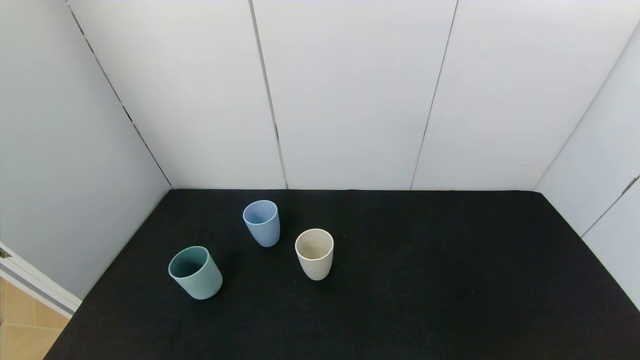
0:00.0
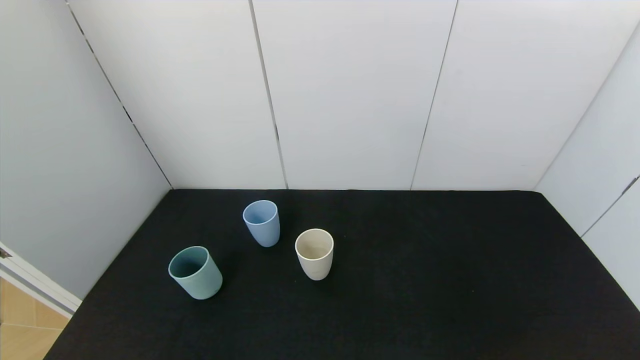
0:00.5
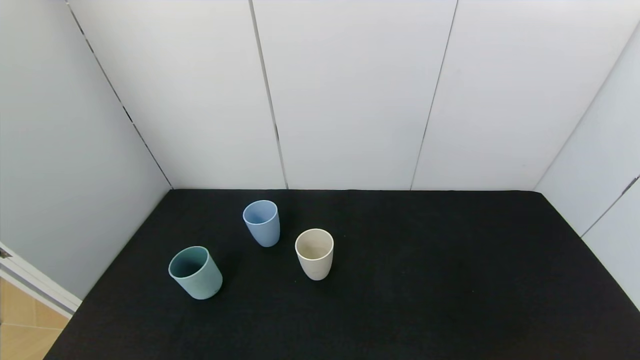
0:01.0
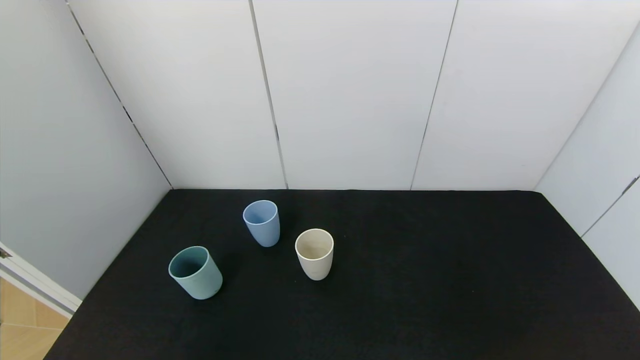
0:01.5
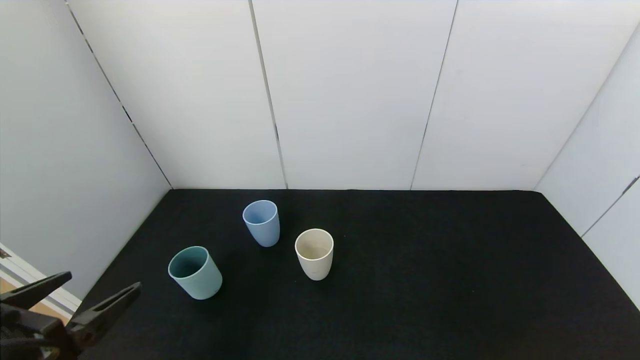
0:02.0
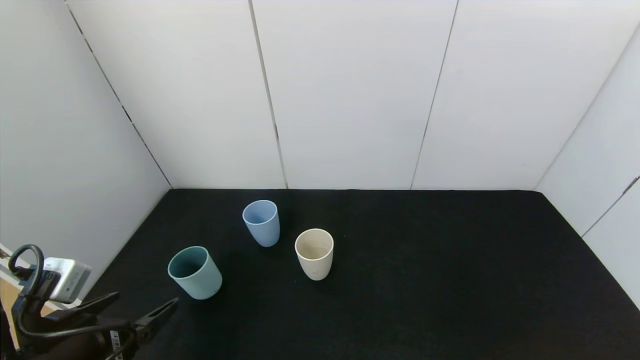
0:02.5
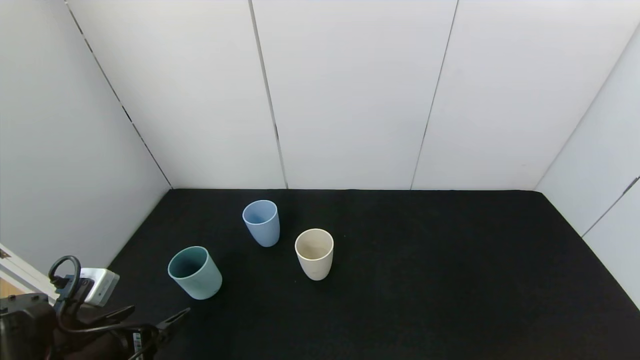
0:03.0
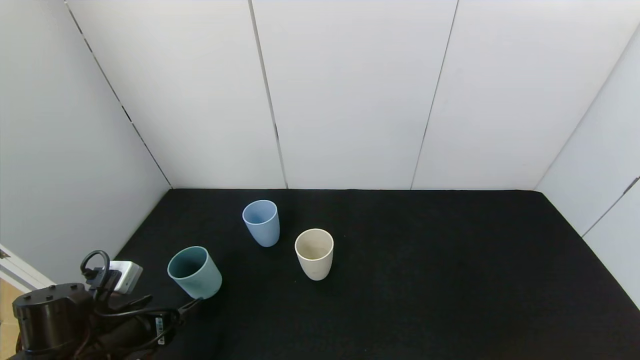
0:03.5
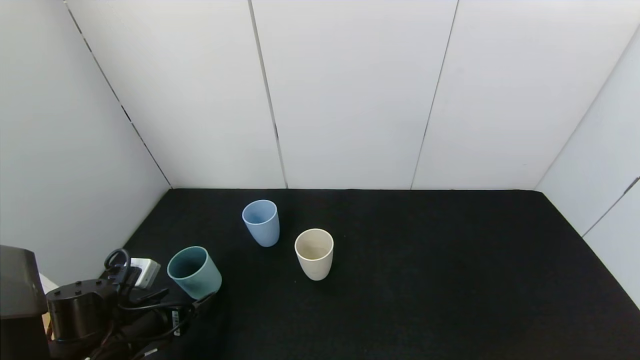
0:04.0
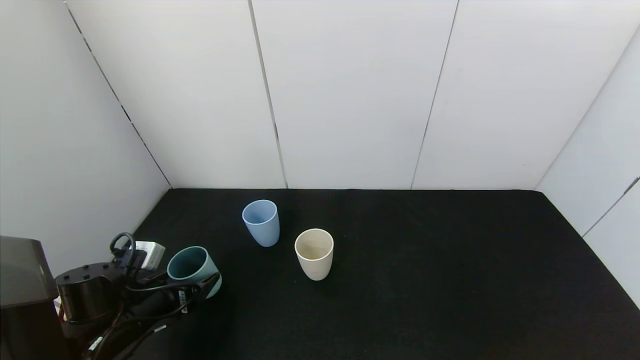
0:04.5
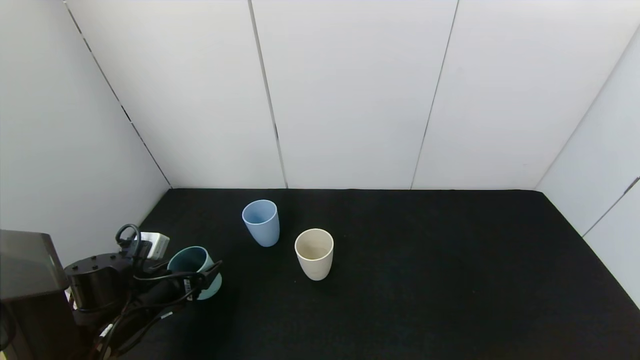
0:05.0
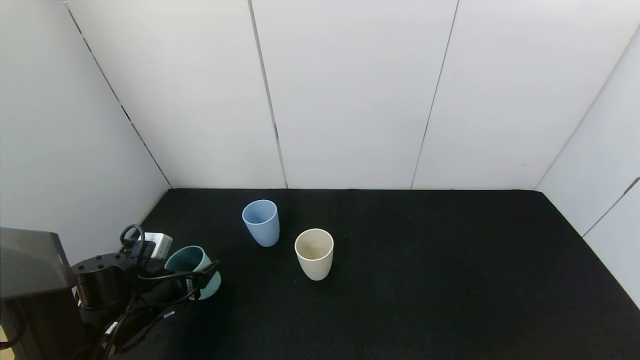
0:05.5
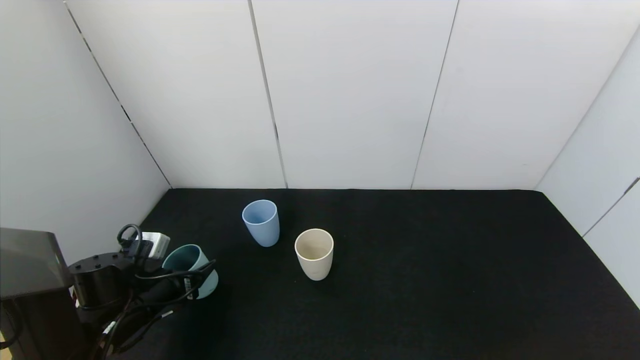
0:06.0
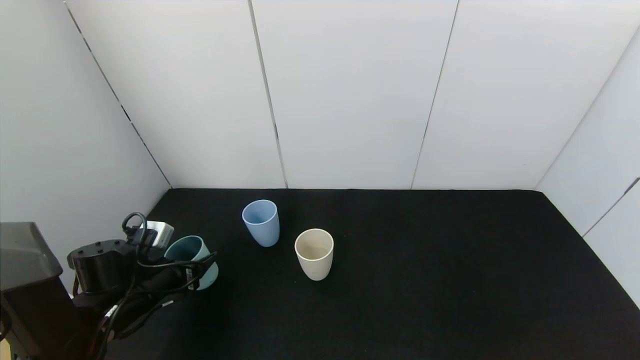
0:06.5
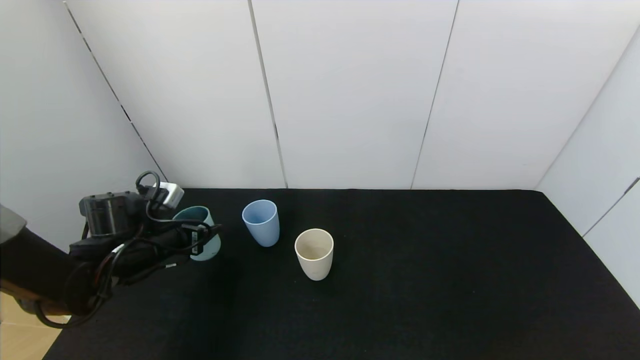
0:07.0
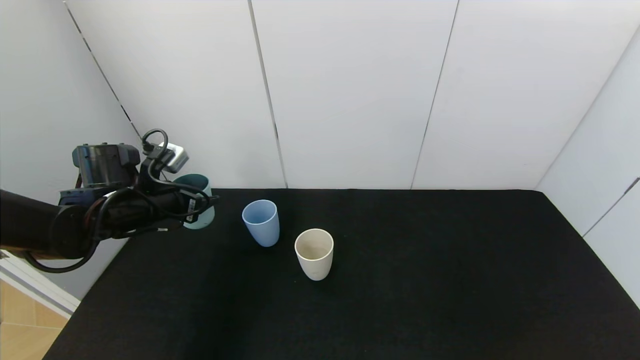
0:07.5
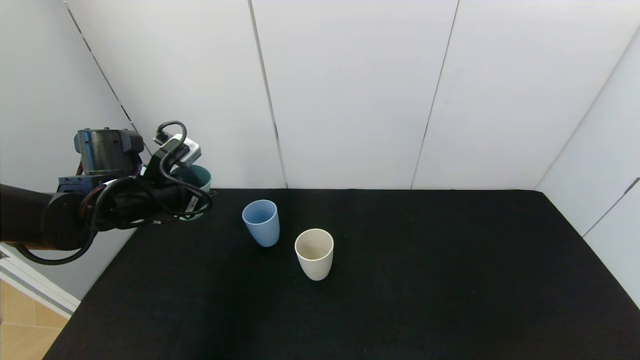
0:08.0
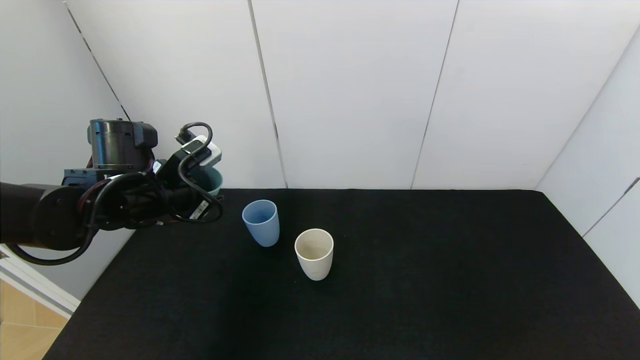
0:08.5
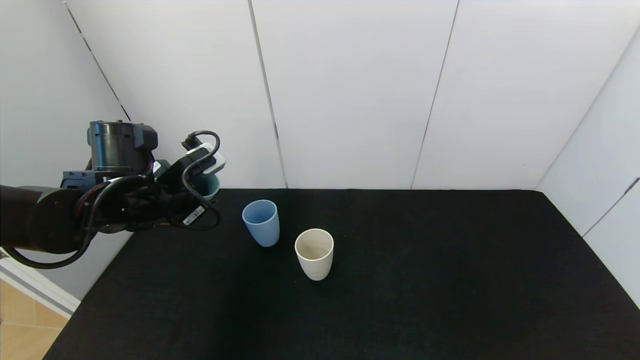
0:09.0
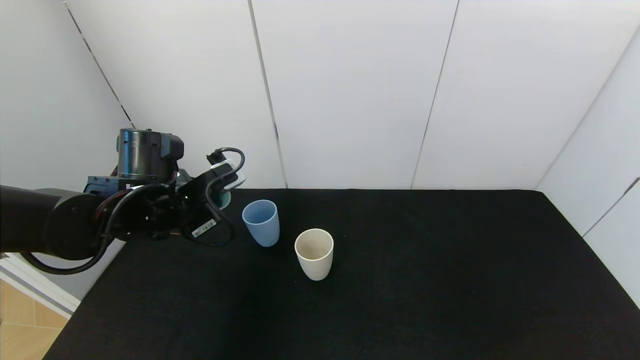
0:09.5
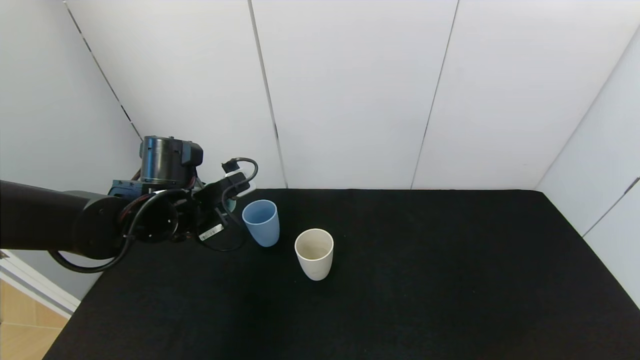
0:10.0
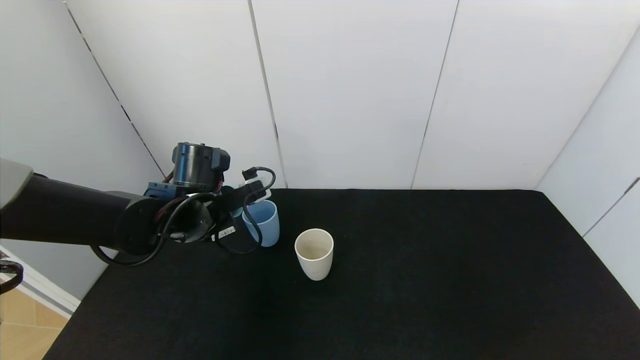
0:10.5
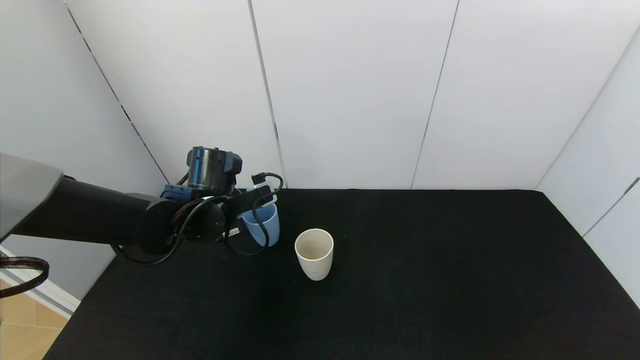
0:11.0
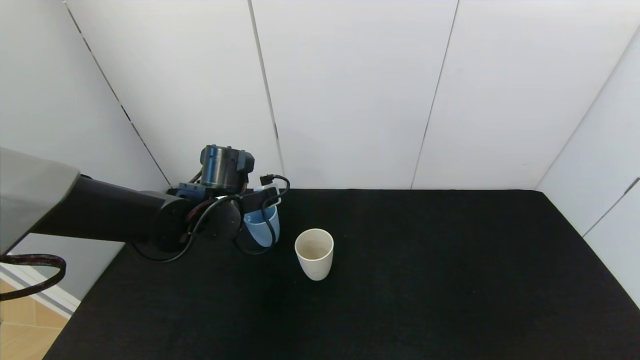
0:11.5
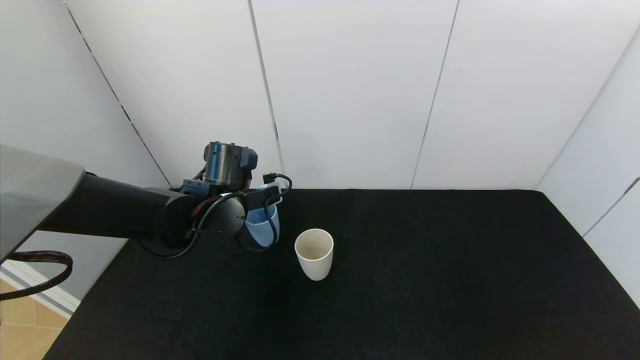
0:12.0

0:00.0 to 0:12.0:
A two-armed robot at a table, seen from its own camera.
Task of the whole recording: use the gripper to pour the water into the other two cups on black table.
Step, 0:00.0 to 0:06.0: Pick up the green plastic cup with left gripper.
0:00.0 to 0:02.0: The left gripper travels forward and upward by some 15 cm.
0:02.0 to 0:04.0: The left gripper goes approximately 20 cm downward and forward.
0:04.0 to 0:06.0: The left gripper goes some 5 cm forward, and closes its fingers.
0:06.0 to 0:08.0: The left gripper travels upward and forward by roughly 15 cm.
0:08.0 to 0:10.0: The left gripper shifts approximately 5 cm to the right.
0:10.0 to 0:12.0: The left gripper ends up some 5 cm from where it was.

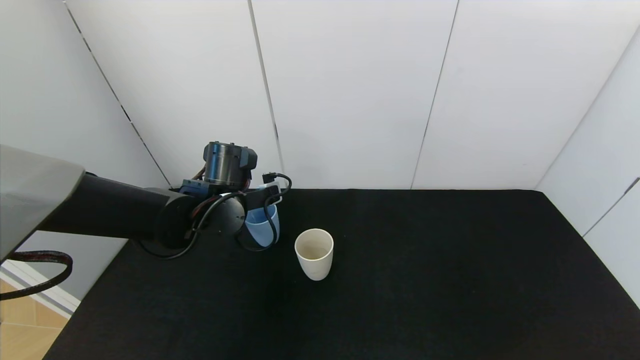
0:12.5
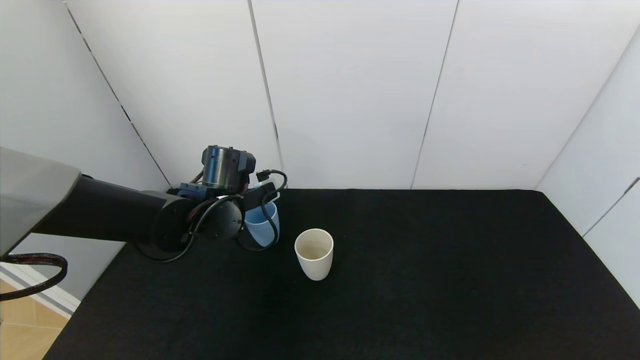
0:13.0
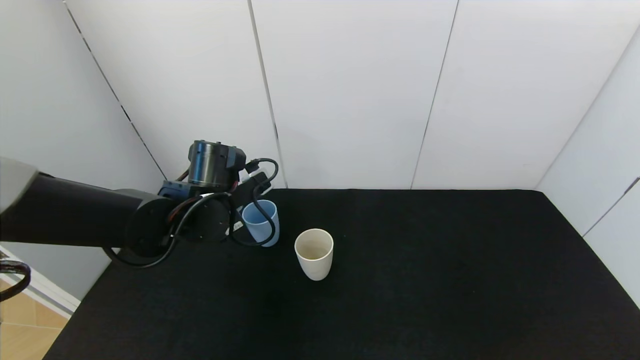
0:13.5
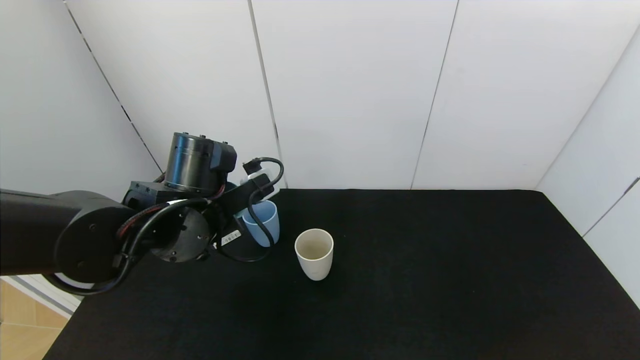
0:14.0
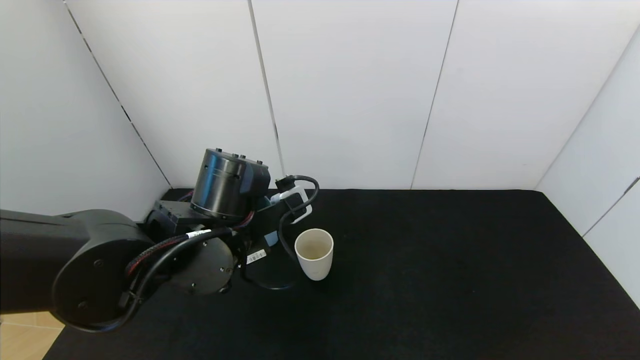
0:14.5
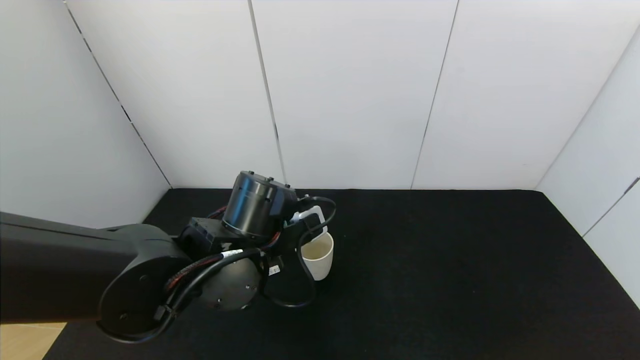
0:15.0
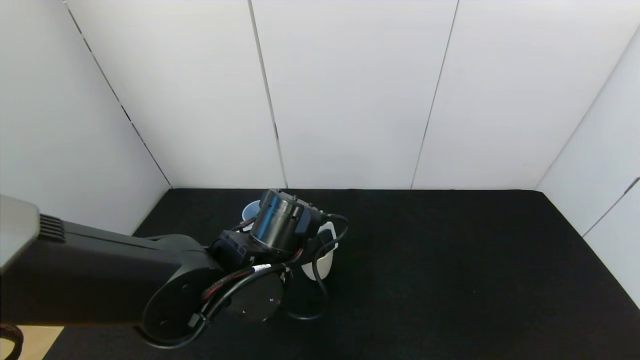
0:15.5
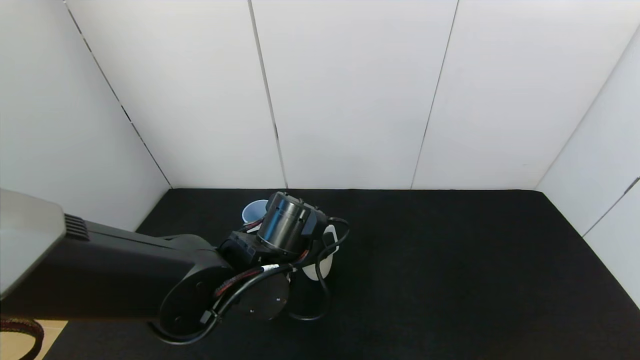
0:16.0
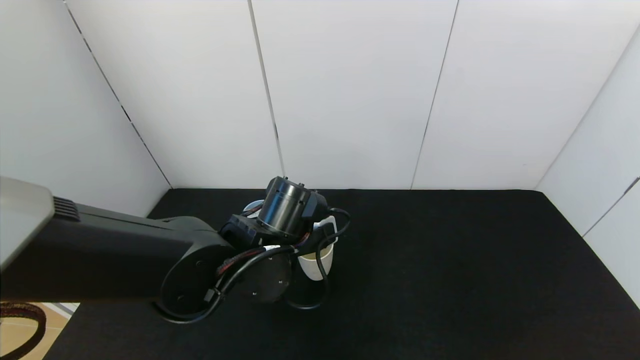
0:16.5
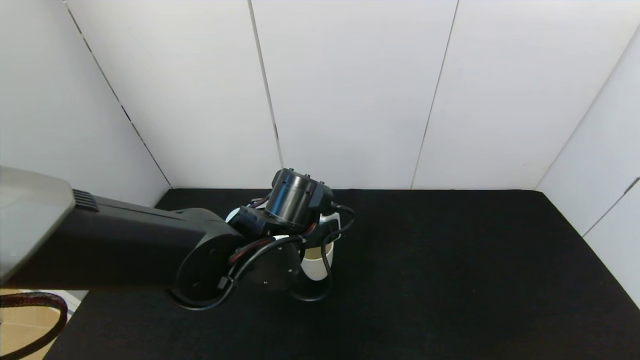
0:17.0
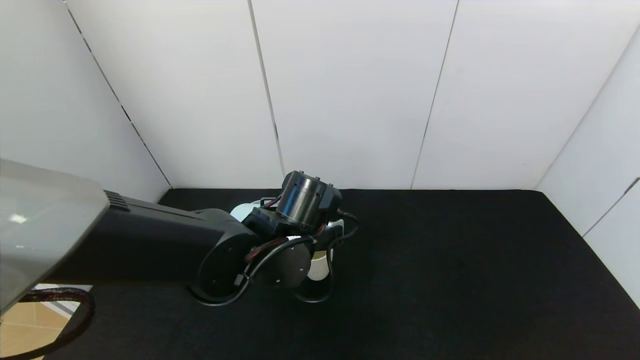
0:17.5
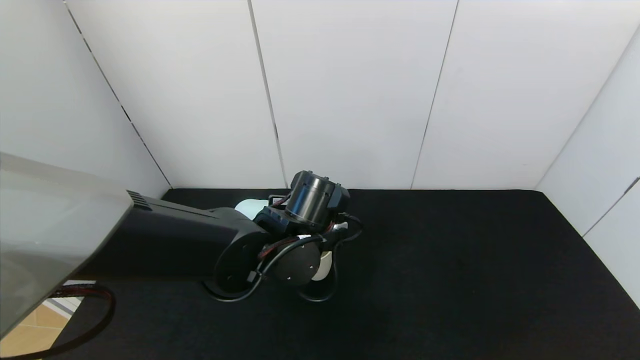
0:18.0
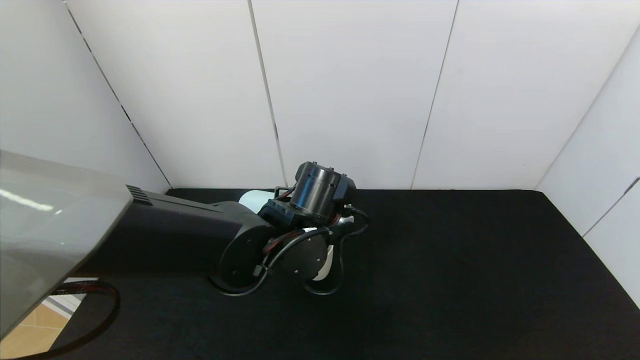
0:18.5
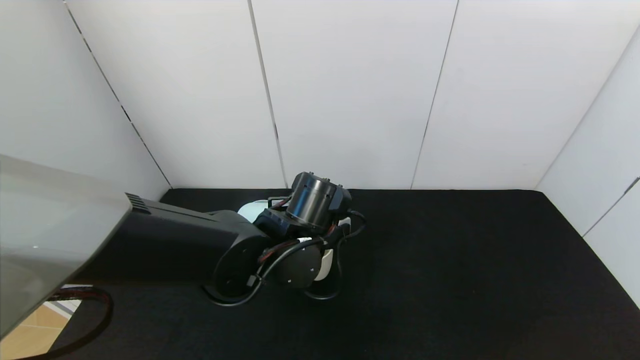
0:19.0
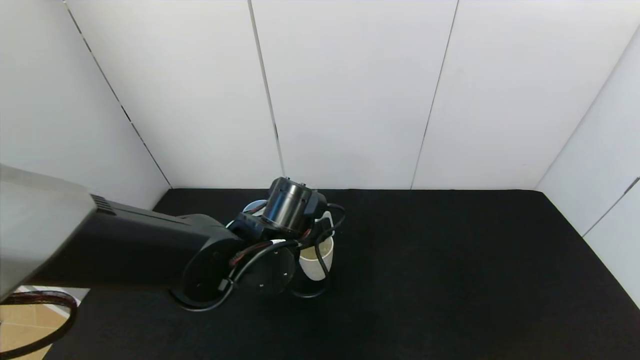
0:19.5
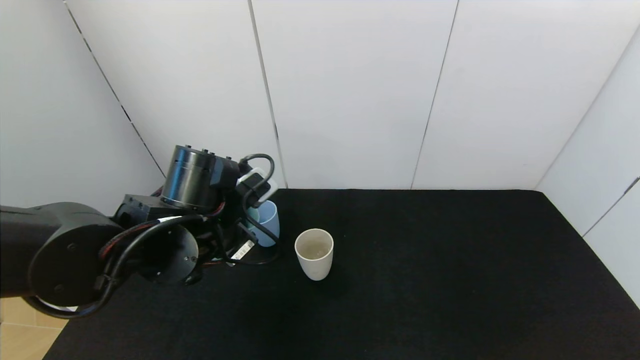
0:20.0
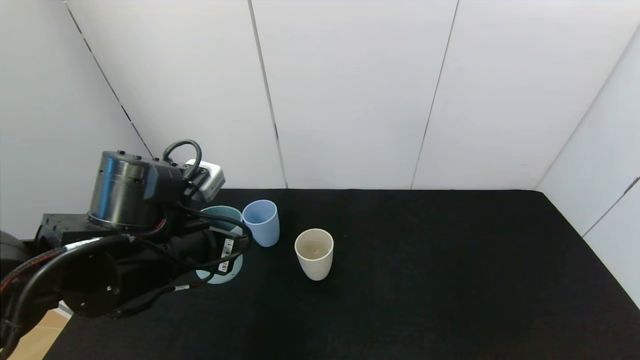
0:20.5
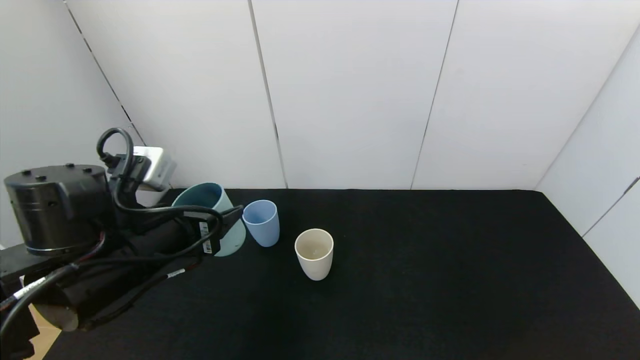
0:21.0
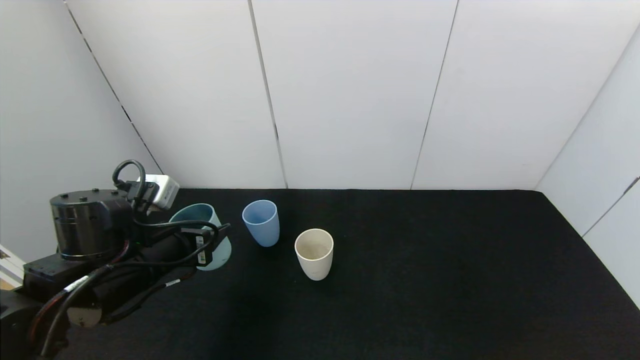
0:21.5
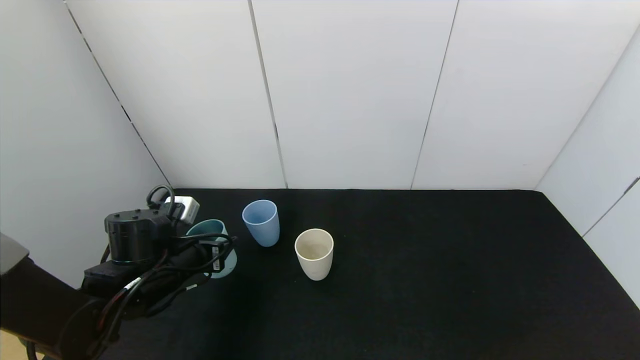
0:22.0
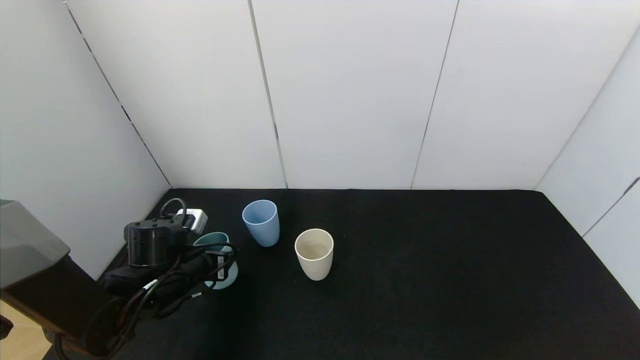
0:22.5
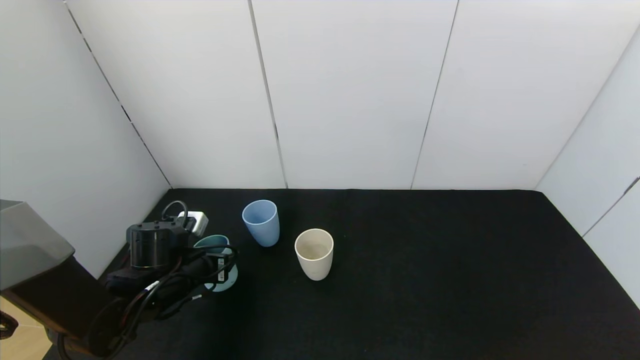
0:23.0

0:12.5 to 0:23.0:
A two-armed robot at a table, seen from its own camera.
Task of the whole recording: use the gripper to pour the water into the other two cups on black table.
Step, 0:14.0 to 0:19.5: Pour water into the gray plastic cup with left gripper.
0:12.5 to 0:14.5: The left gripper moves backward, approximately 10 cm.
0:14.5 to 0:16.5: The left gripper moves some 5 cm.
0:16.5 to 0:19.0: The grippers stay close to where they were, moving slightly.
0:19.0 to 0:21.0: The left gripper shifts about 15 cm to the left and backward.
0:21.0 to 0:23.0: The left gripper is displaced downward and forward by about 15 cm.
